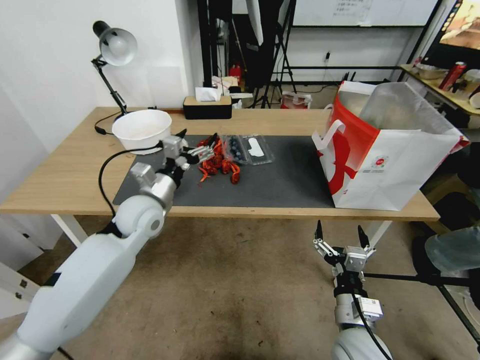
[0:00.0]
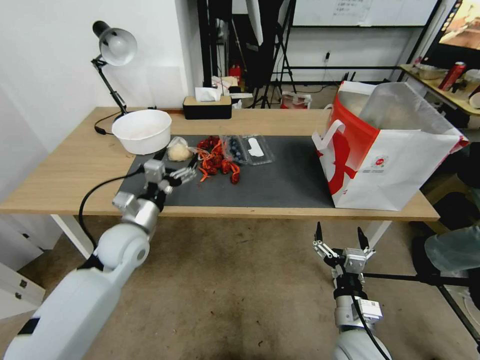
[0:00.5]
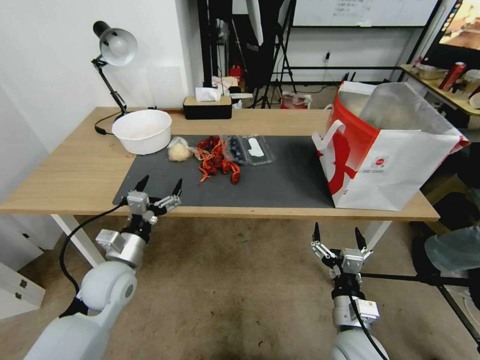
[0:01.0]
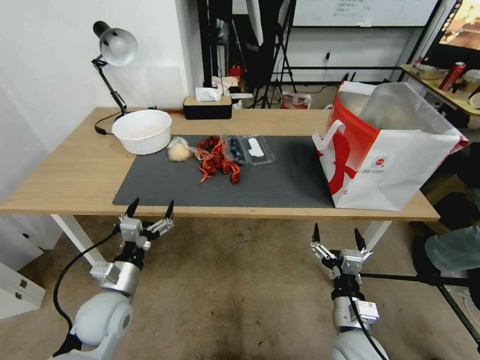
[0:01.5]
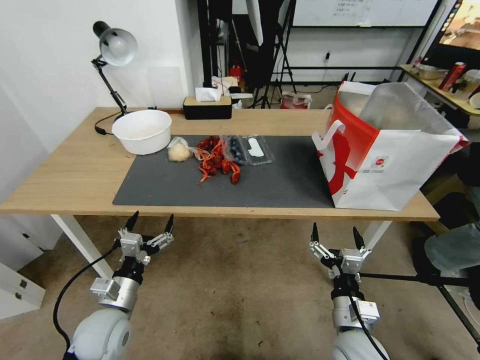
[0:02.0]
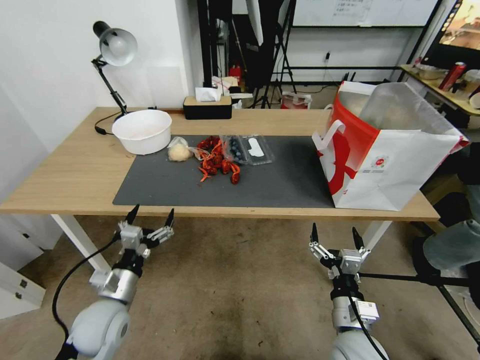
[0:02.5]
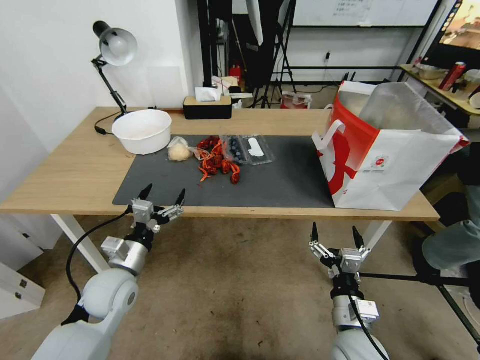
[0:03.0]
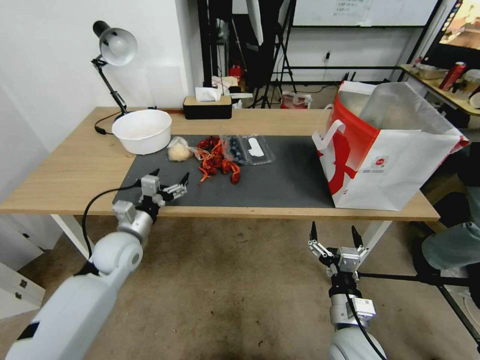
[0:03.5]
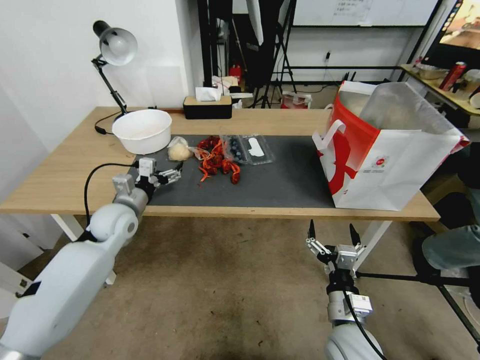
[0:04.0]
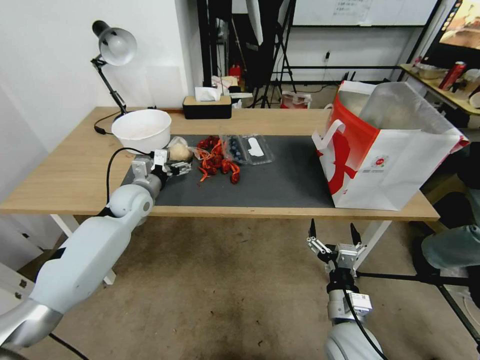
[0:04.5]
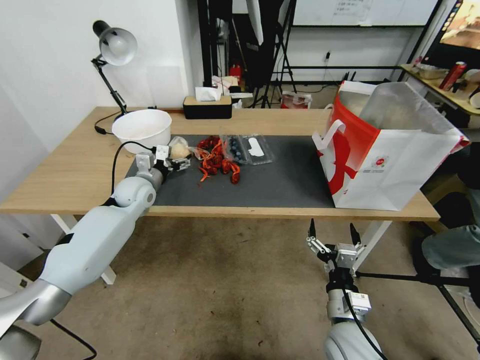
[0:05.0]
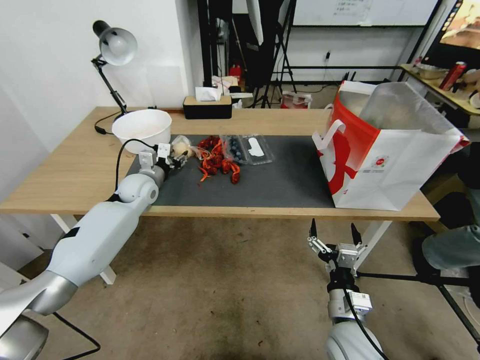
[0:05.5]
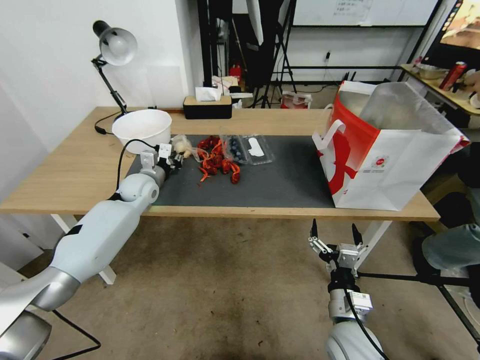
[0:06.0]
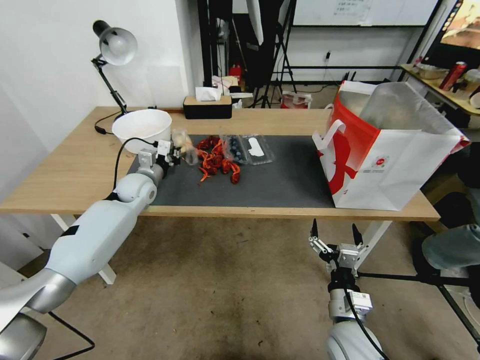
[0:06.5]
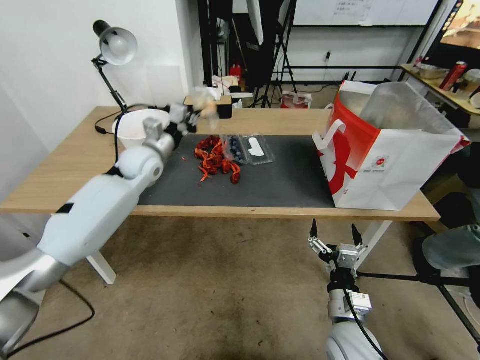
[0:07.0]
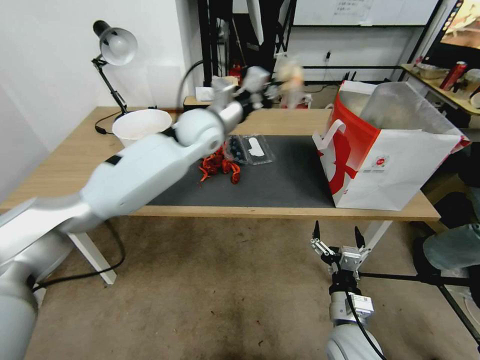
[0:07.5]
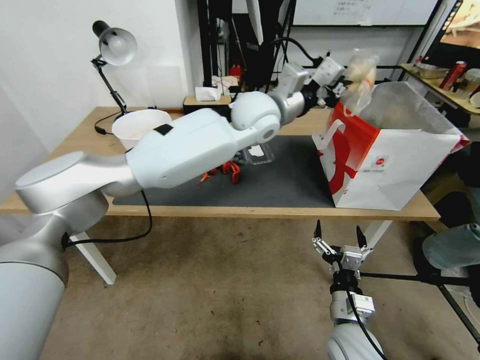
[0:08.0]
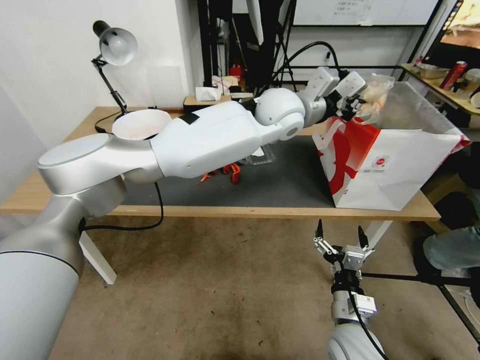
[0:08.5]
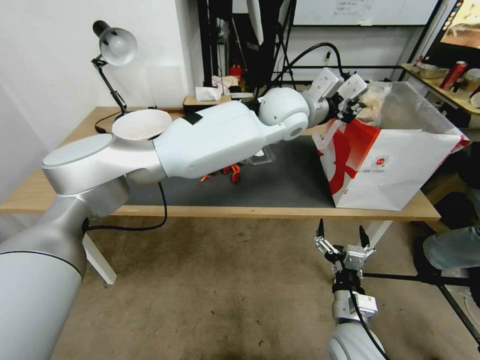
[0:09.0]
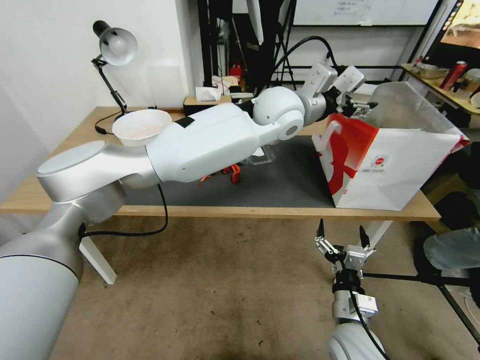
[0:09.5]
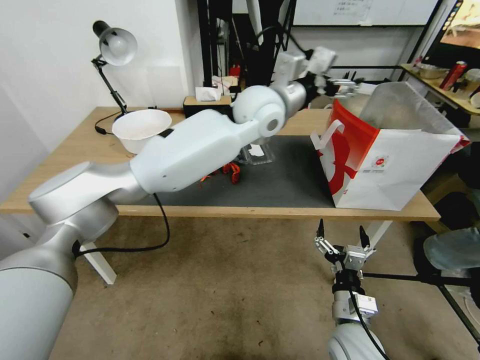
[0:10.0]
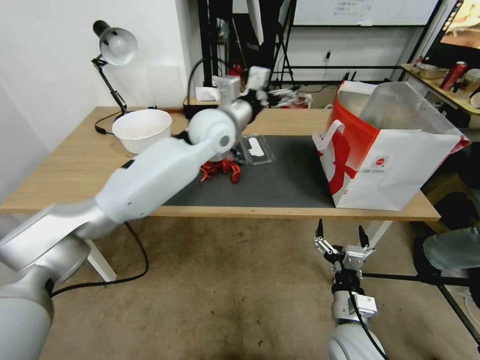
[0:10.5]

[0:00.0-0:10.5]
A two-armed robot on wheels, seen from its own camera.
0:00.0 to 0:02.0: The left gripper is displaced backward and downward by approximately 25 cm.
0:02.0 to 0:04.0: The left gripper shifts some 25 cm forward and upward.
0:04.0 to 0:06.5: The left gripper travels forward by about 10 cm, and closes its fingers.
0:06.5 to 0:08.5: The left gripper goes approximately 40 cm to the right and upward.
0:08.5 to 0:10.5: The left gripper heads to the left, covering about 15 cm, and opens its fingers.

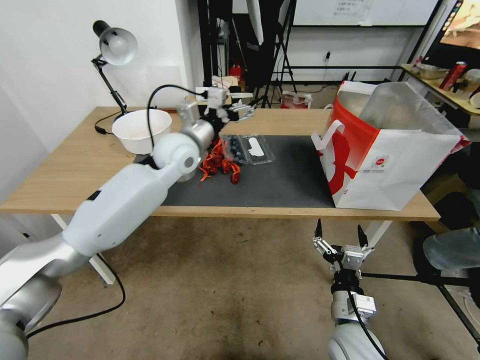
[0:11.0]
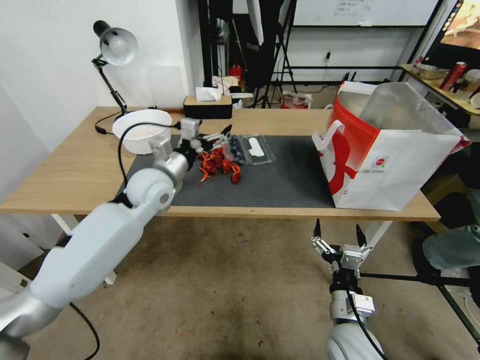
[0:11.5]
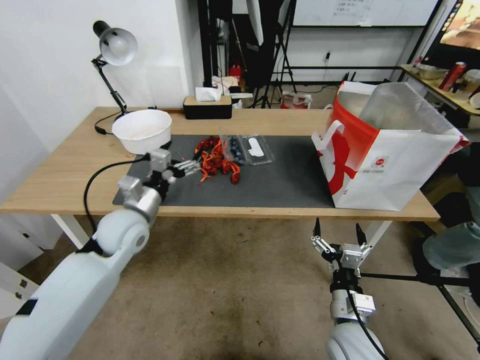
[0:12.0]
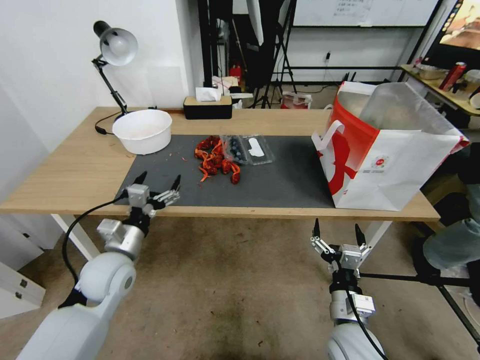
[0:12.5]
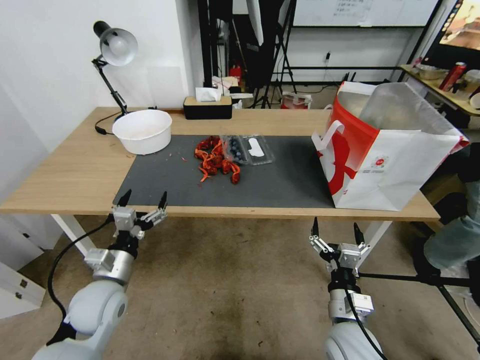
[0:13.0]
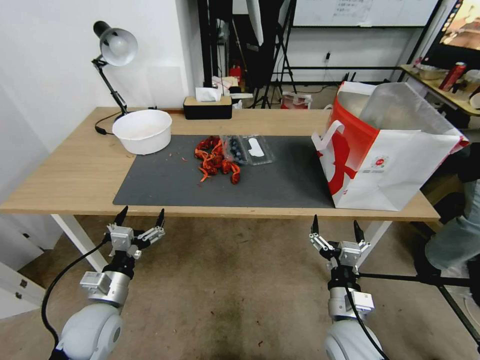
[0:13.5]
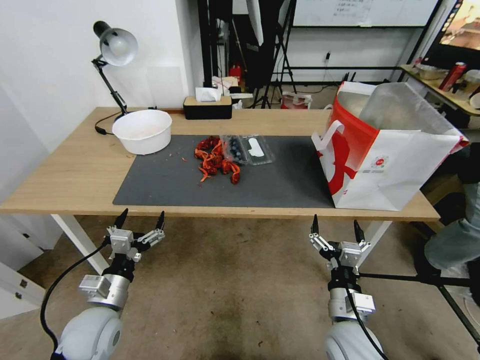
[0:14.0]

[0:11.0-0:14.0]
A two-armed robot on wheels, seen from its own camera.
0:11.0 to 0:12.5: The left gripper travels backward, downward and to the left by some 30 cm.
0:12.5 to 0:14.0: The left gripper goes some 10 cm backward and downward.
